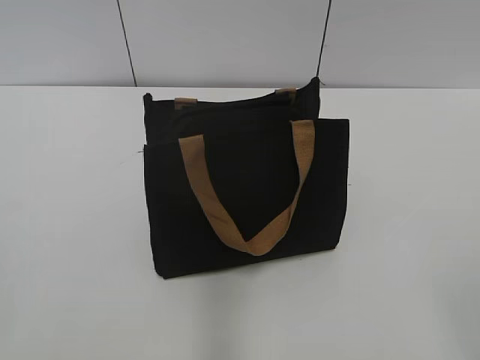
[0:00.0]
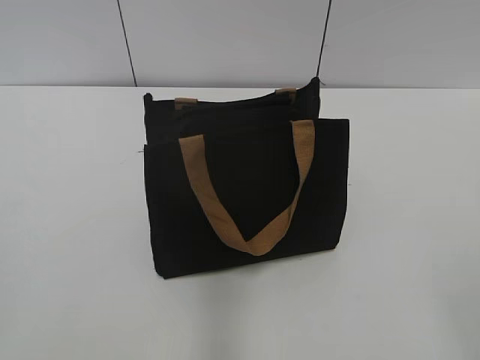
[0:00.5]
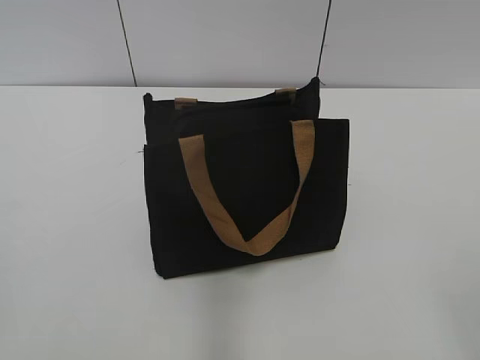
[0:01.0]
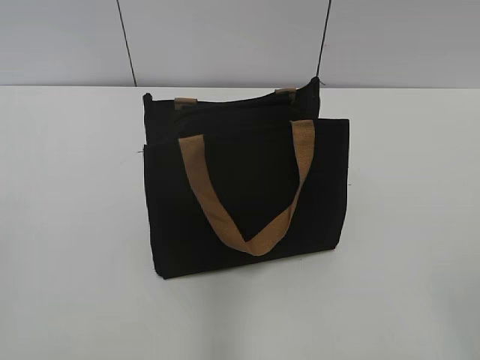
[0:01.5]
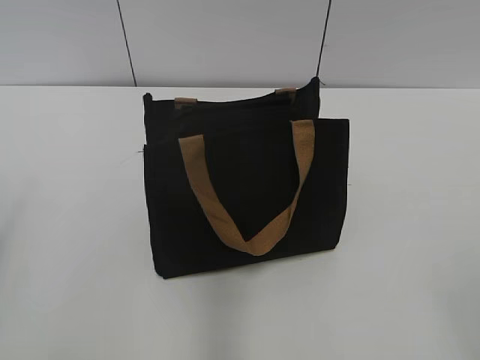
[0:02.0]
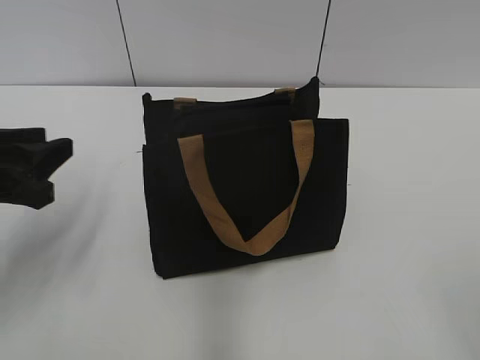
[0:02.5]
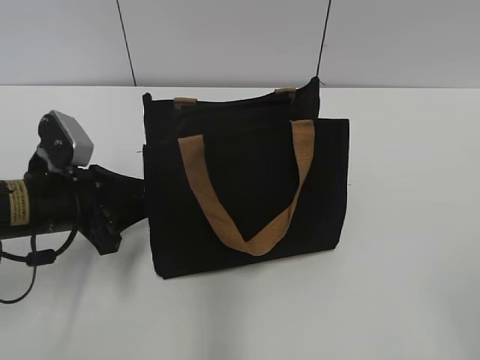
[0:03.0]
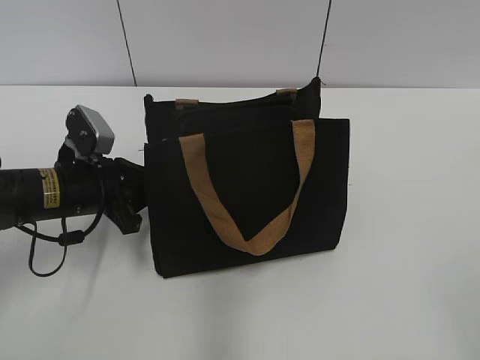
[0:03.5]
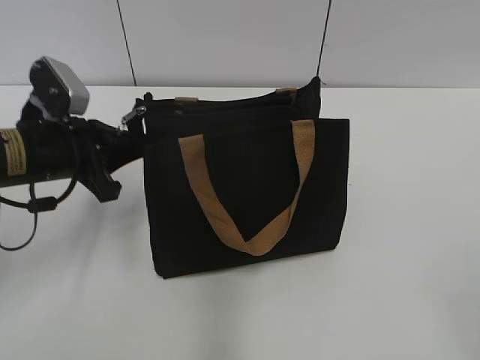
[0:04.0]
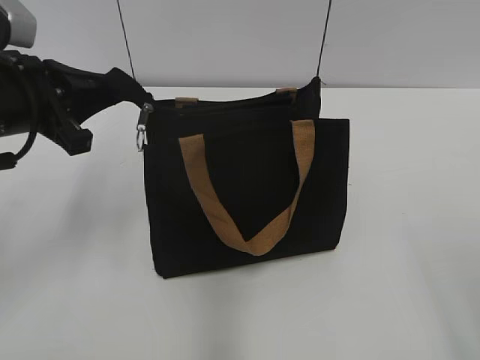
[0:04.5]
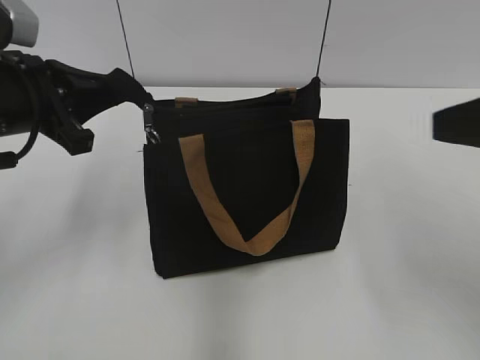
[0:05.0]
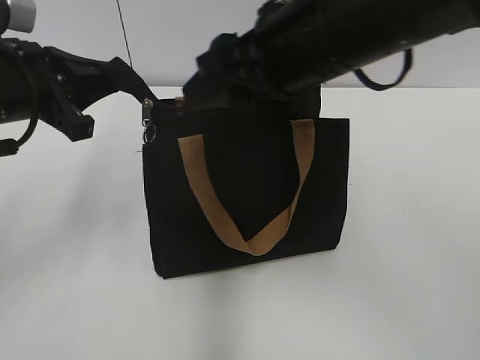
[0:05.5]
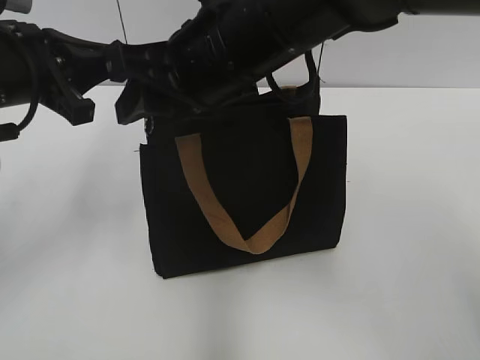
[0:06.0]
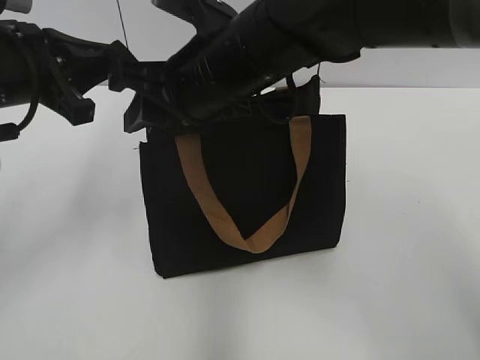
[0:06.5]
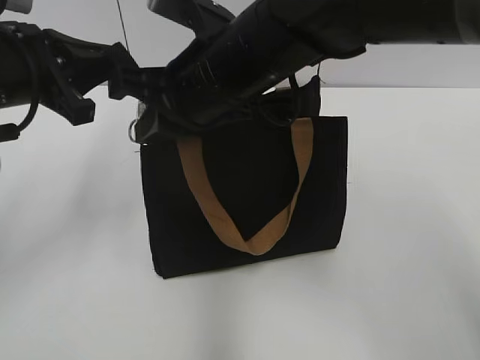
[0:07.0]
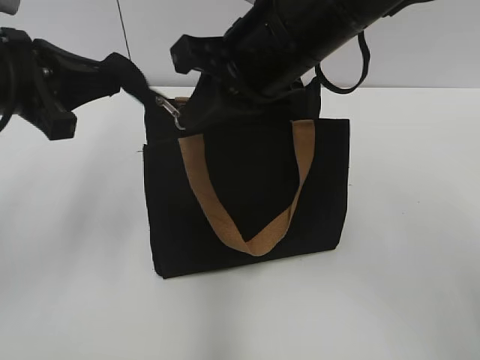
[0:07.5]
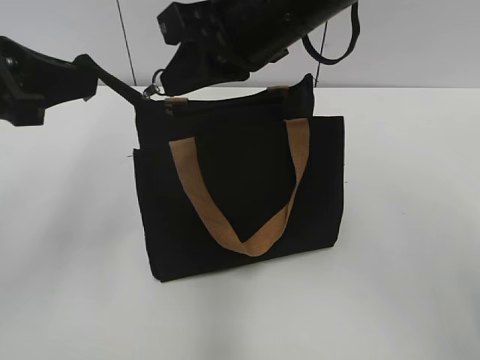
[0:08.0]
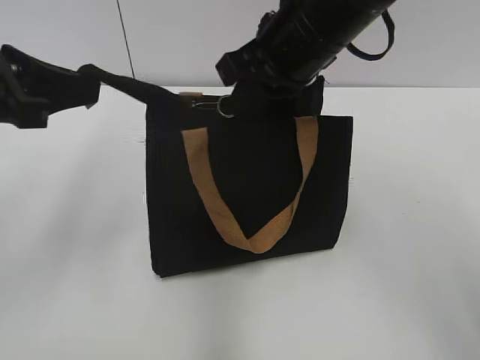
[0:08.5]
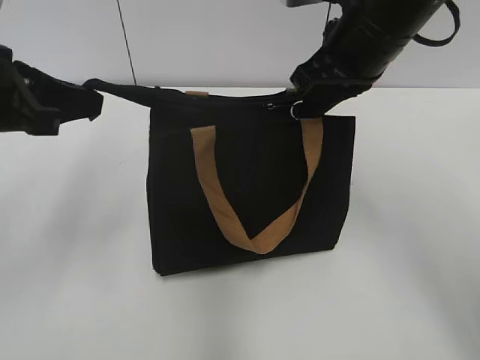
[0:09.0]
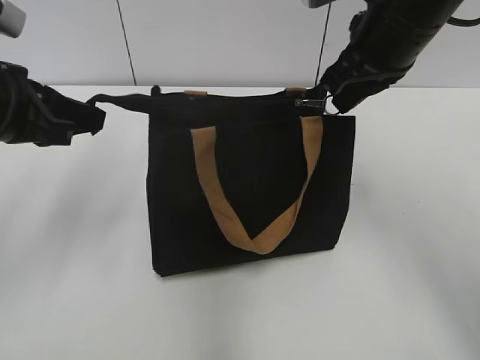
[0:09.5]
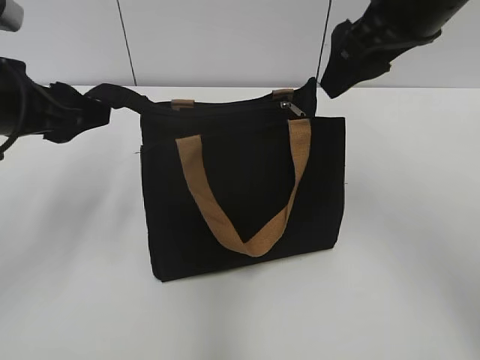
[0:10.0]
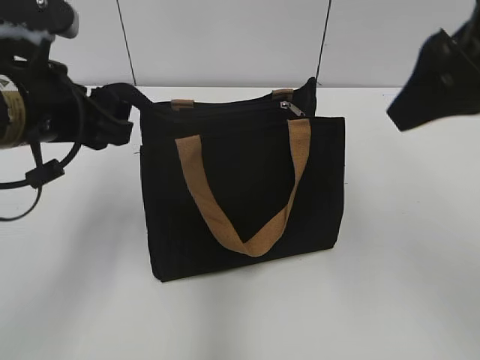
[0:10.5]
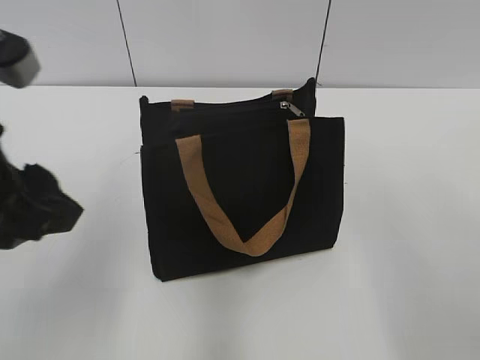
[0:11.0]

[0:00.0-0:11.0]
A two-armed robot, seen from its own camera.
Step, 0:00.0 to 0:09.5: Zip up the bag with your right hand.
Step, 0:10.0 to 0:10.5: Grab the zipper with your left hand.
0:02.0 to 0:03.5: The left gripper moves forward, downward and to the right, some 25 cm, and closes.
0:03.5 to 0:05.5: The left gripper moves upward, about 15 cm. Meanwhile the right gripper shifts roughly 35 cm forward and to the left.
0:05.5 to 0:07.5: The right gripper closes up.
0:07.5 to 0:09.0: The right gripper travels to the right by approximately 10 cm.
0:09.0 to 0:11.0: The left gripper travels backward by roughly 10 cm, and opens, while the right gripper heads backward and to the right, covering some 25 cm, and opens up.

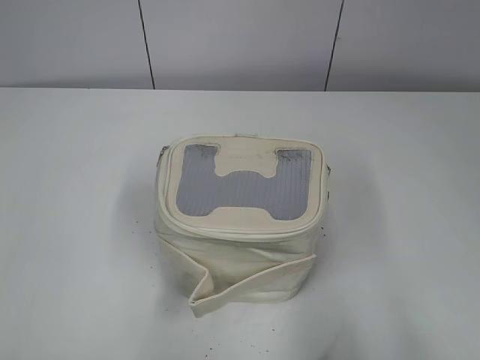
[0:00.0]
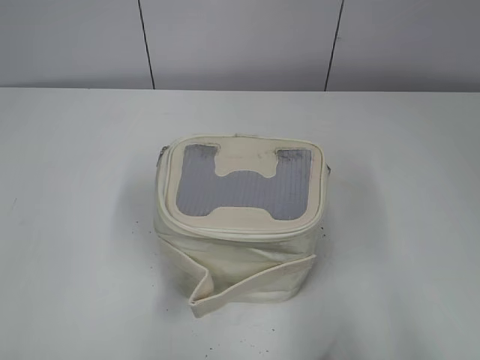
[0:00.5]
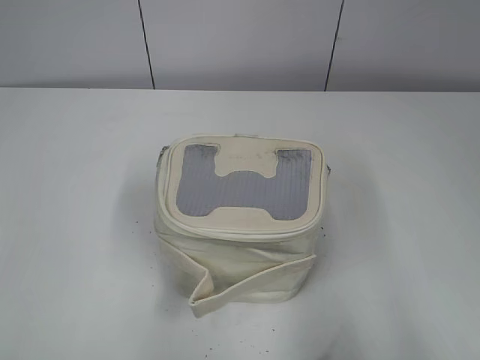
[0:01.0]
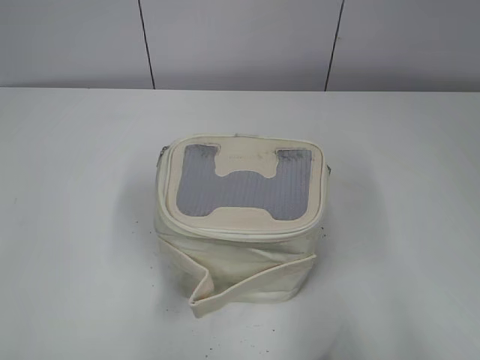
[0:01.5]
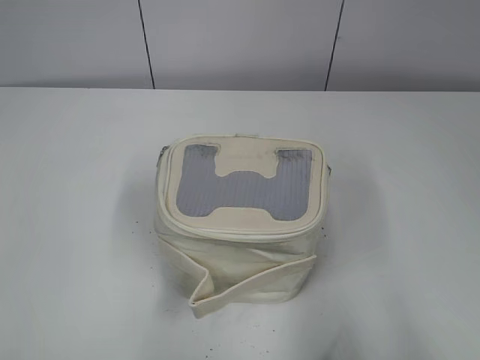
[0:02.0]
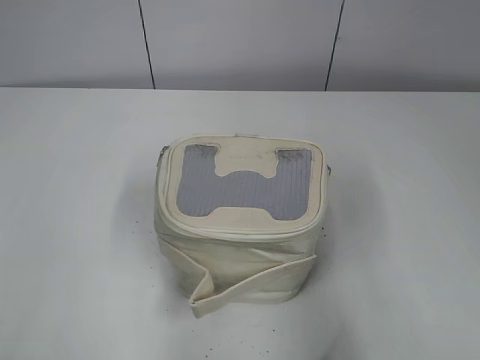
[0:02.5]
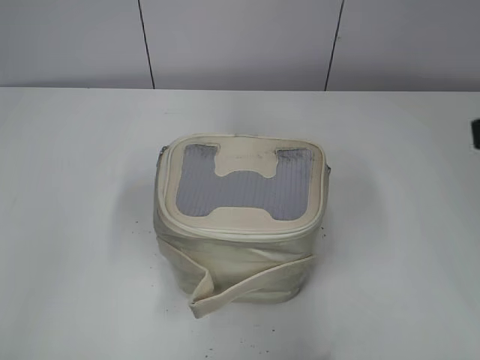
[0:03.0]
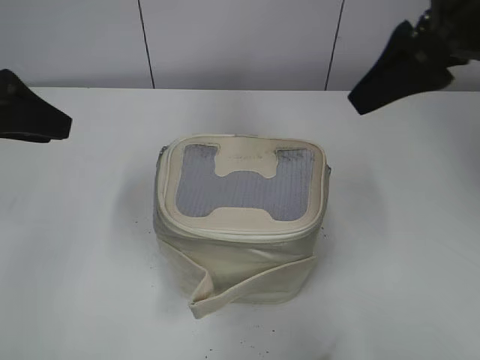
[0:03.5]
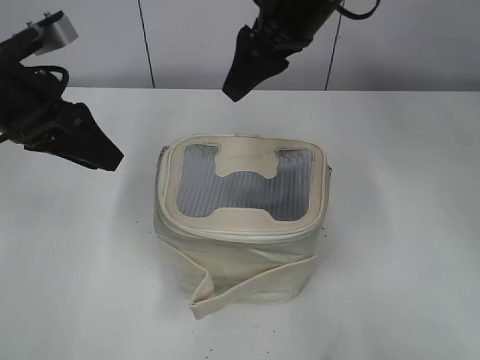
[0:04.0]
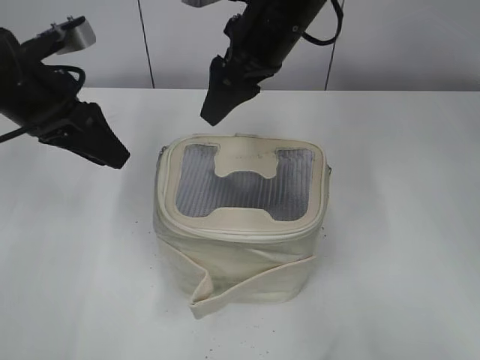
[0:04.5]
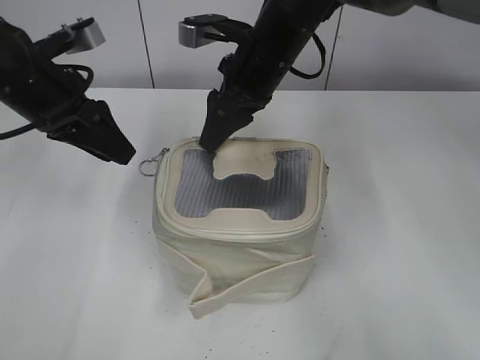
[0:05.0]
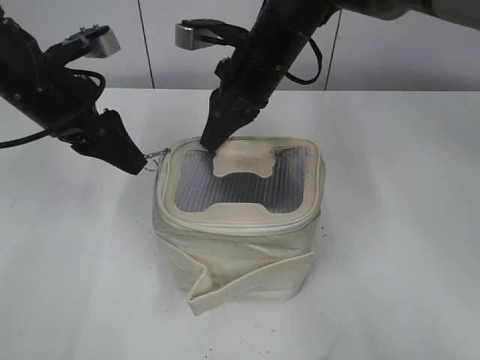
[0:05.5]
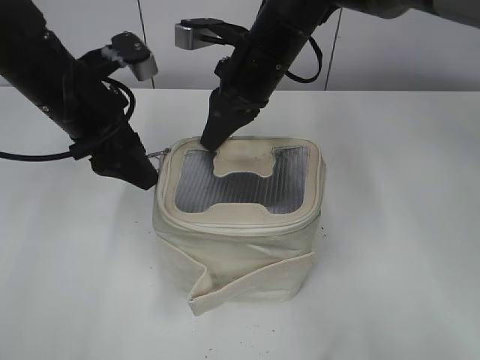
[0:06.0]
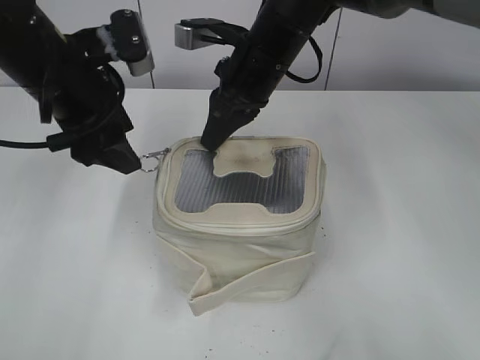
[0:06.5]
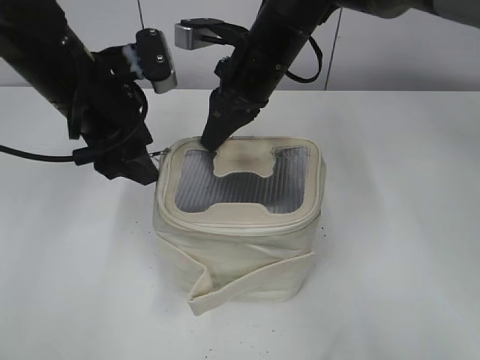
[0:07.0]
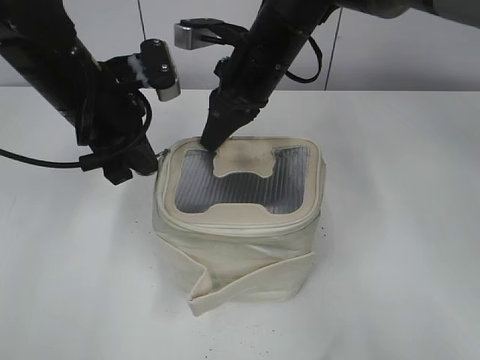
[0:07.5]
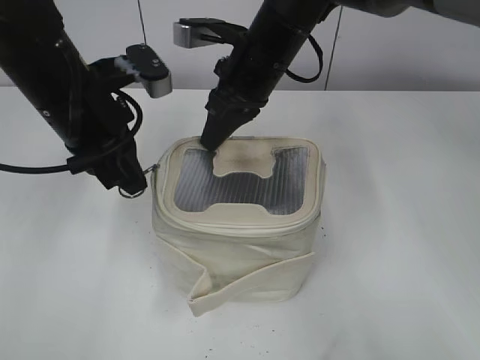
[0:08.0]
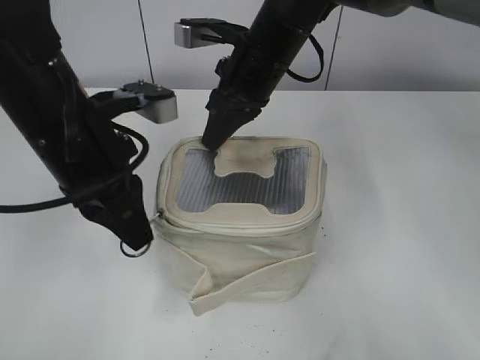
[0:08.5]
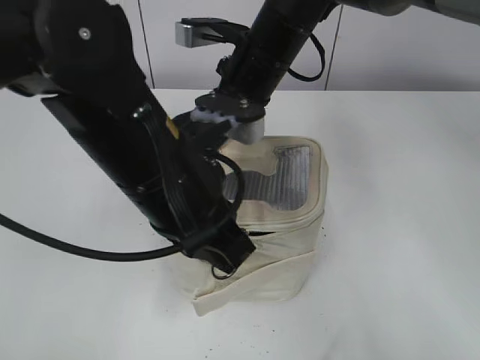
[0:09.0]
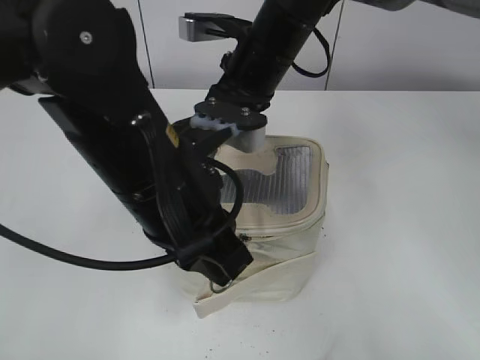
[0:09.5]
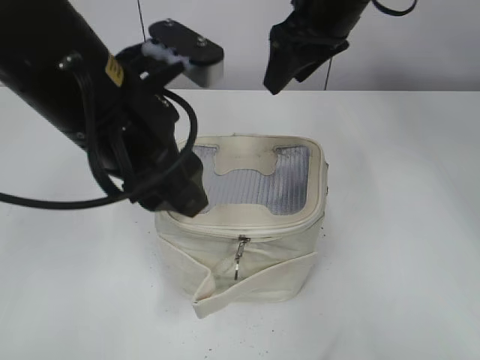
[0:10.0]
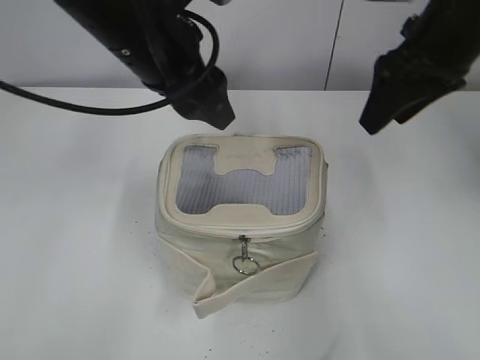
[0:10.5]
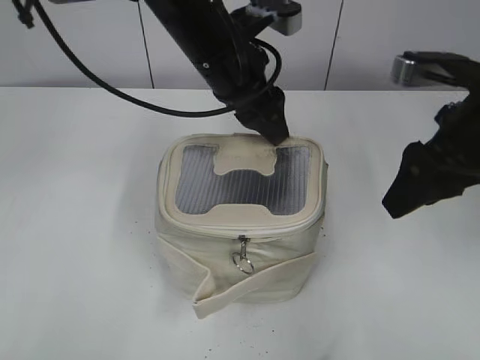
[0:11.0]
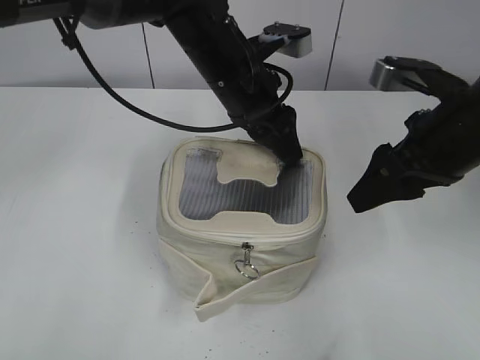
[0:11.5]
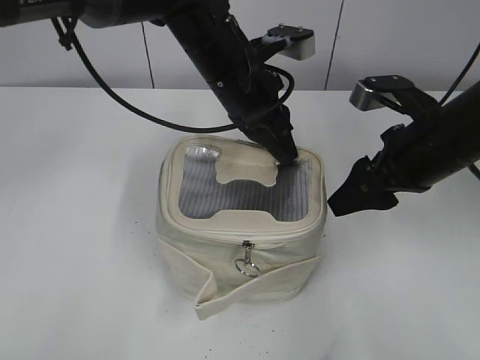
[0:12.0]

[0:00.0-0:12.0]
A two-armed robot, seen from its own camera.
Step, 0:00.0 to 0:09.5: Zip up the bag with your left hand.
0:02.0 to 0:04.0: The right gripper shifts approximately 40 cm forward and to the left. The left gripper is displaced forward by about 30 cm.
0:04.0 to 0:06.0: The right gripper goes about 10 cm downward and to the left, and closes up. Meanwhile the left gripper goes approximately 5 cm to the right, and opens its fingers.
0:06.0 to 0:08.0: The left gripper closes up.
0:08.0 to 0:10.0: The right gripper heads upward and to the right, covering about 10 cm, and opens, while the left gripper shifts about 10 cm backward and to the right, and opens its fingers.
0:10.0 to 0:12.0: The right gripper travels backward, to the right and downward by about 20 cm. The left gripper goes roughly 15 cm forward and to the right, and closes up.

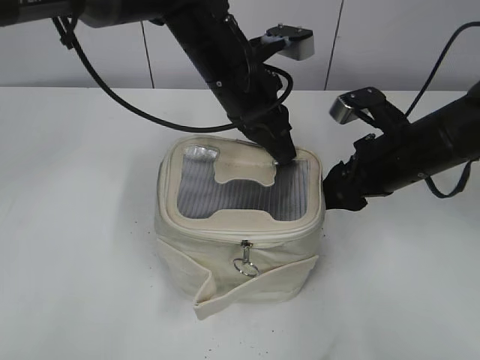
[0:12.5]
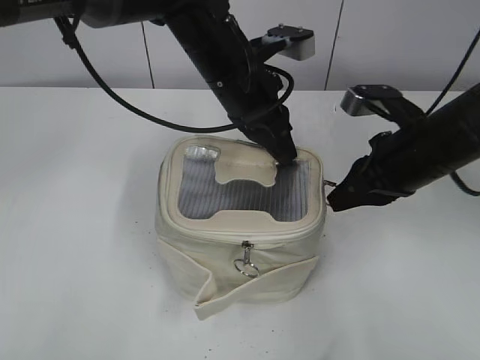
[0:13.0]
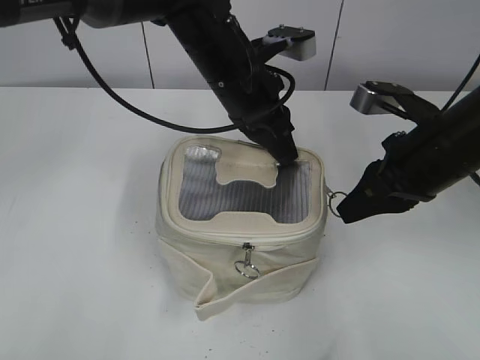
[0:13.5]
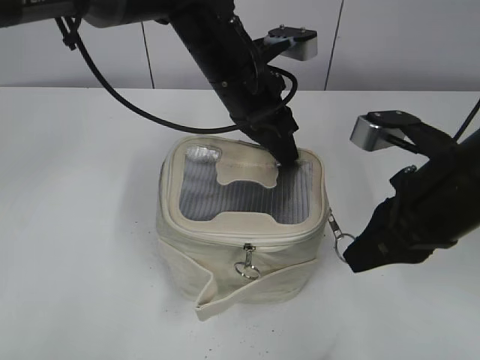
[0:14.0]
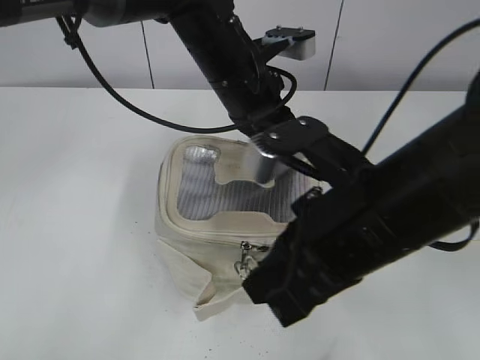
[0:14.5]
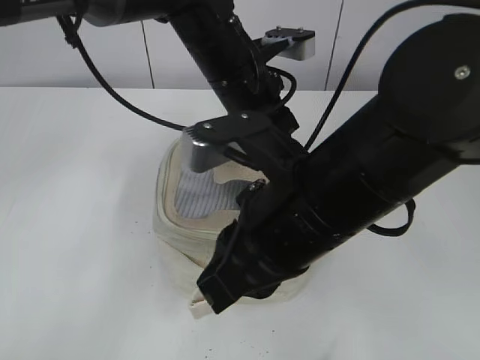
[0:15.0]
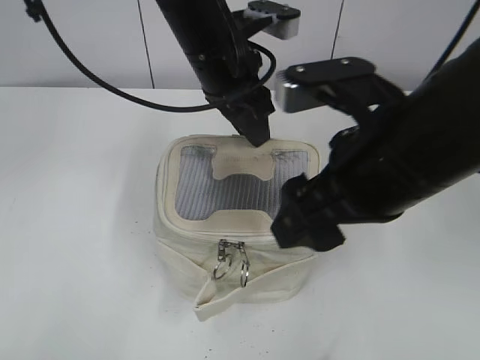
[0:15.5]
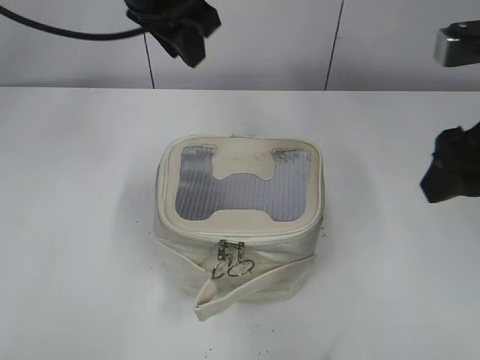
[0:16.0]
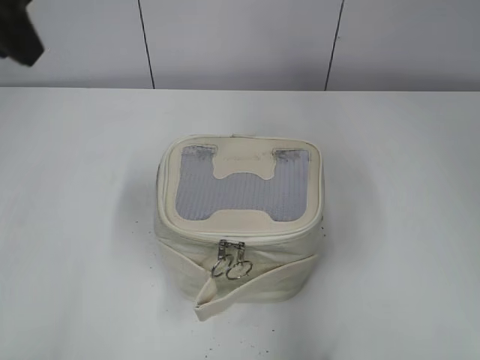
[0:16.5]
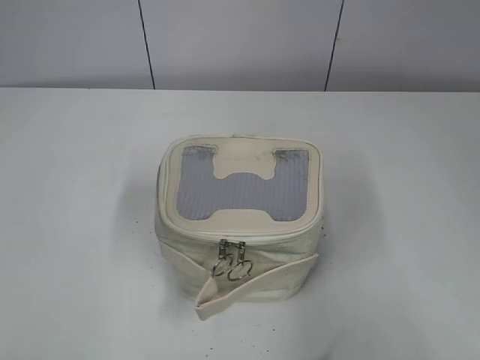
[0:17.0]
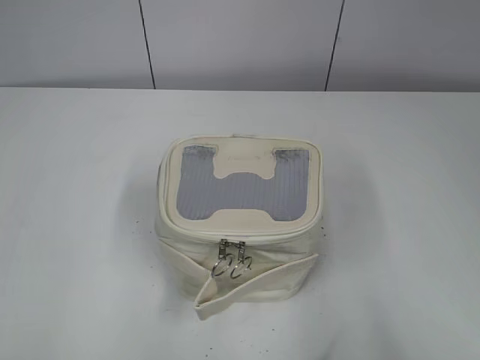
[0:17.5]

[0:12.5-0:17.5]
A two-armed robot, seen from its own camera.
Step, 0:12.5 to 0:15.0: Zip up the bag with your right hand.
0:12.5 to 0:15.0: The right gripper travels to the left, backward and upward by roughly 20 cm, and closes.
0:15.0 to 0:17.5: The left gripper travels backward and to the left by approximately 50 cm, and opens its fingers. The right gripper is displaced to the right and backward by roughly 30 cm, and opens up.
